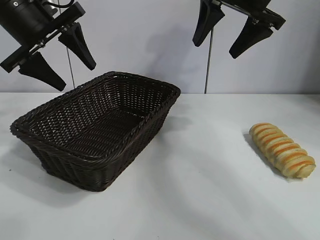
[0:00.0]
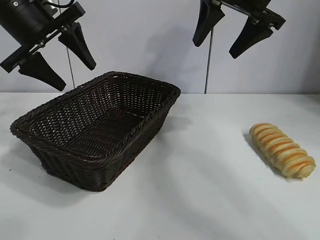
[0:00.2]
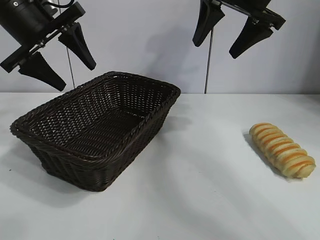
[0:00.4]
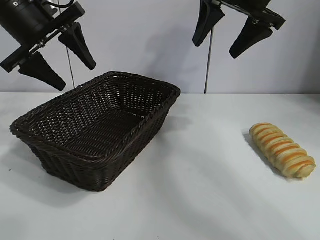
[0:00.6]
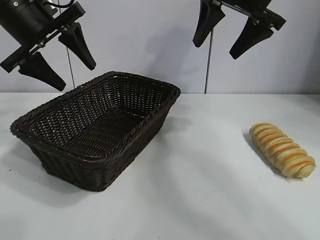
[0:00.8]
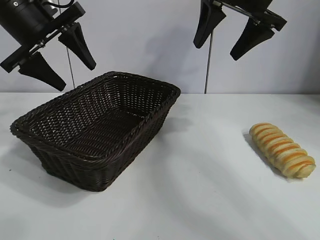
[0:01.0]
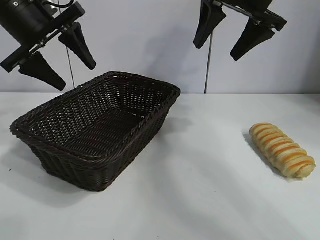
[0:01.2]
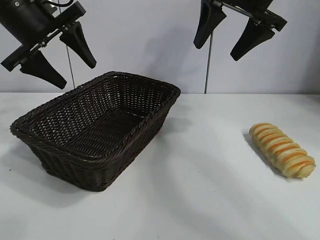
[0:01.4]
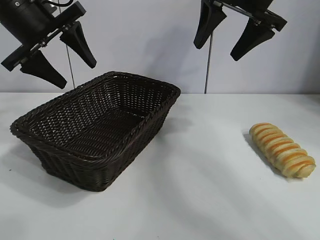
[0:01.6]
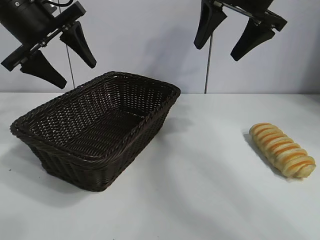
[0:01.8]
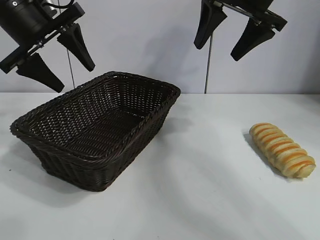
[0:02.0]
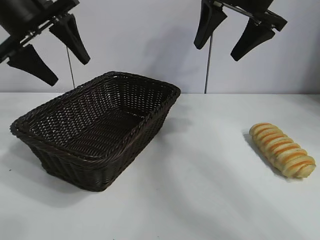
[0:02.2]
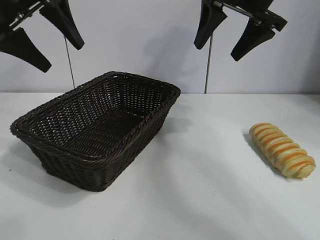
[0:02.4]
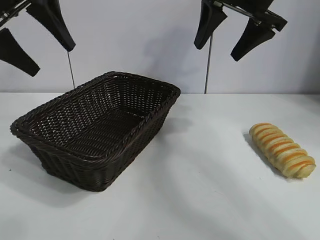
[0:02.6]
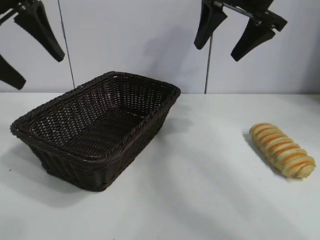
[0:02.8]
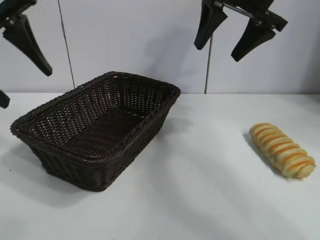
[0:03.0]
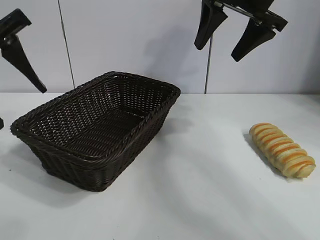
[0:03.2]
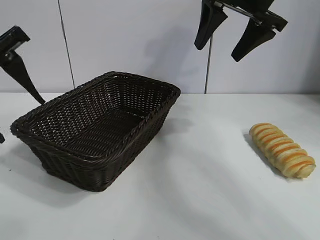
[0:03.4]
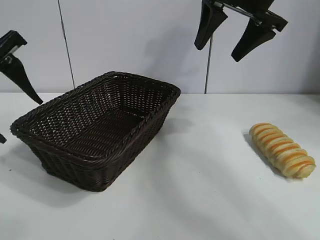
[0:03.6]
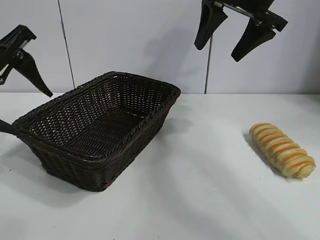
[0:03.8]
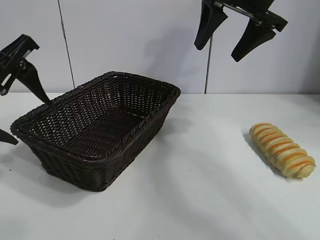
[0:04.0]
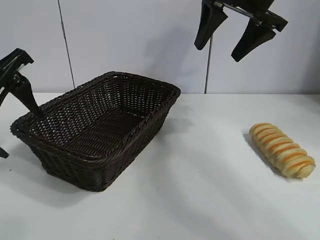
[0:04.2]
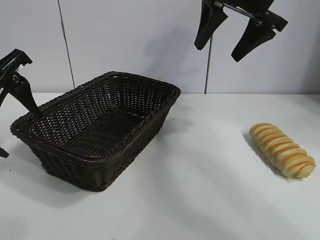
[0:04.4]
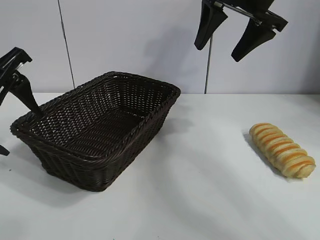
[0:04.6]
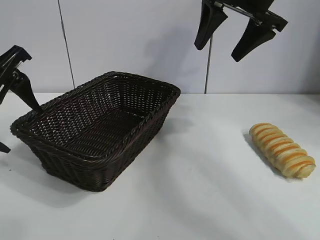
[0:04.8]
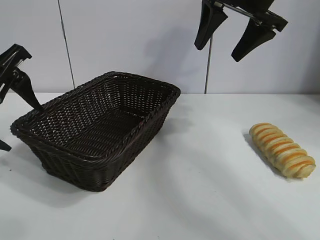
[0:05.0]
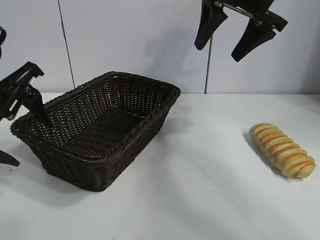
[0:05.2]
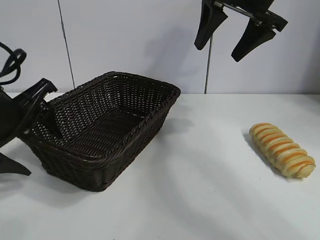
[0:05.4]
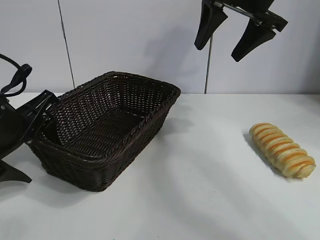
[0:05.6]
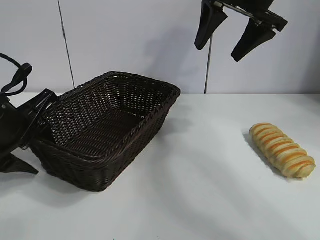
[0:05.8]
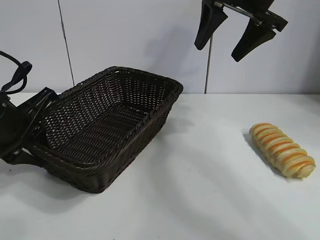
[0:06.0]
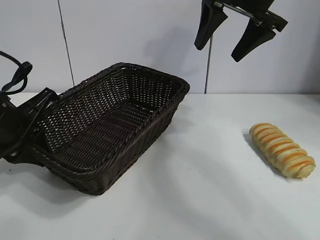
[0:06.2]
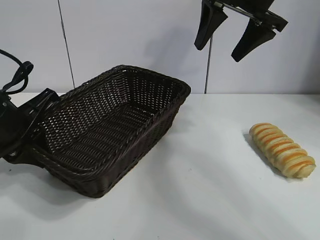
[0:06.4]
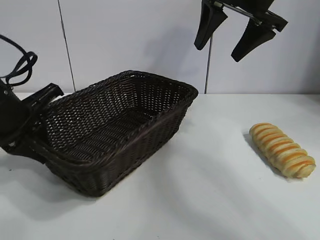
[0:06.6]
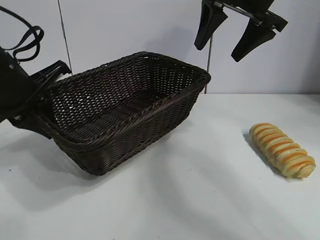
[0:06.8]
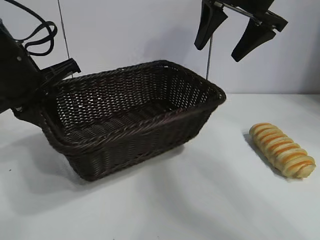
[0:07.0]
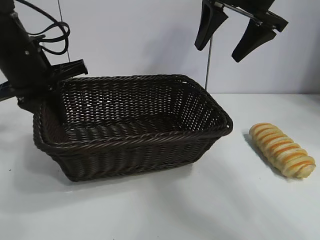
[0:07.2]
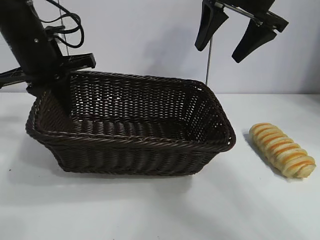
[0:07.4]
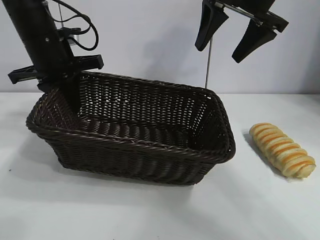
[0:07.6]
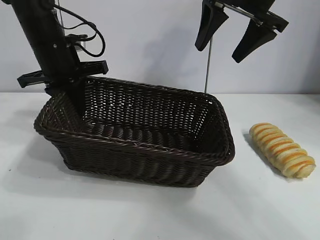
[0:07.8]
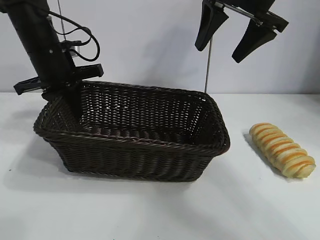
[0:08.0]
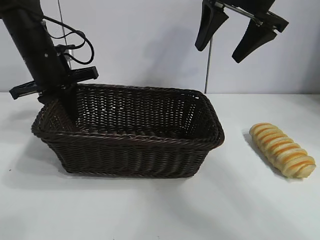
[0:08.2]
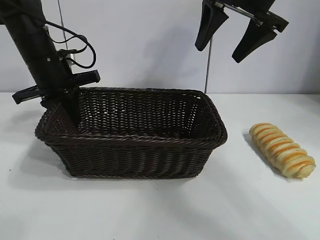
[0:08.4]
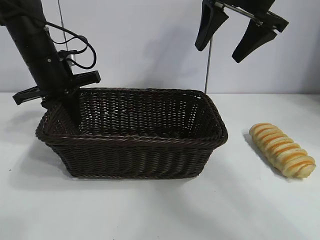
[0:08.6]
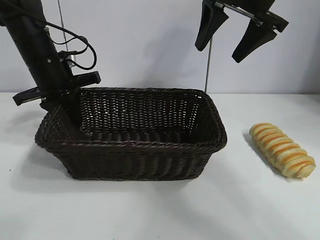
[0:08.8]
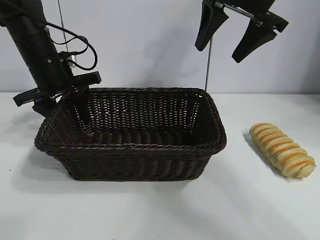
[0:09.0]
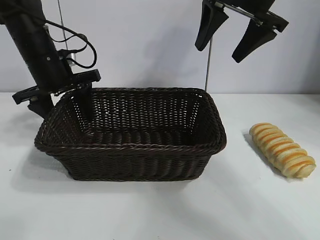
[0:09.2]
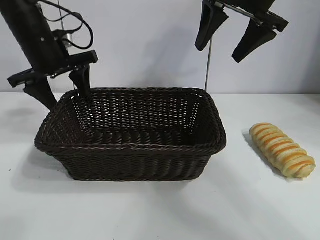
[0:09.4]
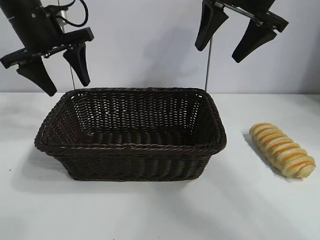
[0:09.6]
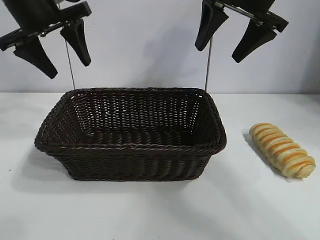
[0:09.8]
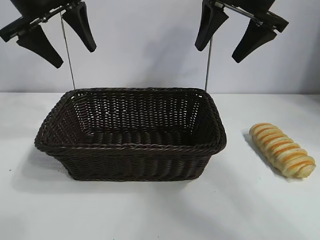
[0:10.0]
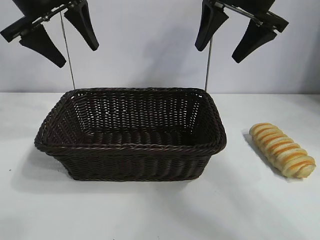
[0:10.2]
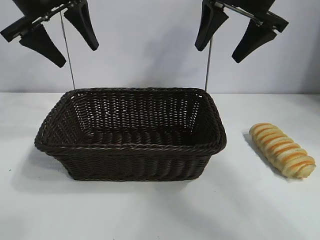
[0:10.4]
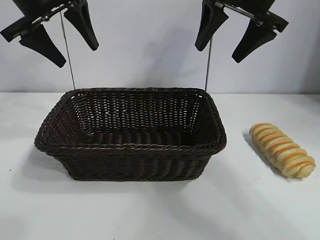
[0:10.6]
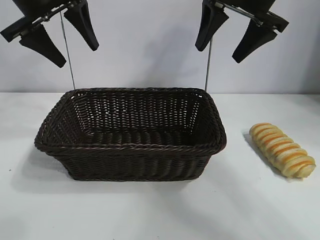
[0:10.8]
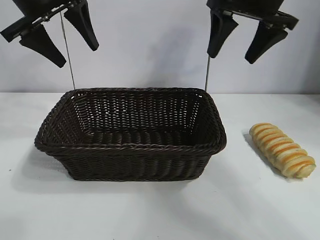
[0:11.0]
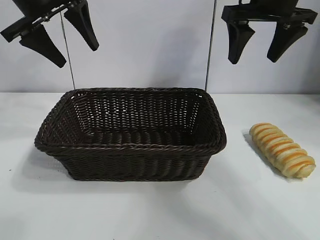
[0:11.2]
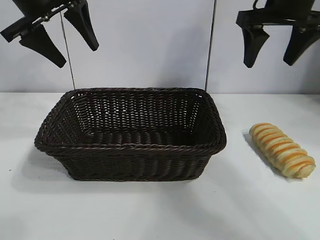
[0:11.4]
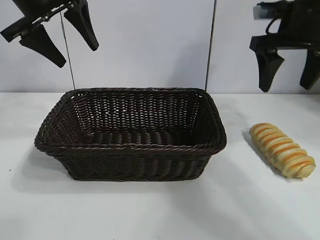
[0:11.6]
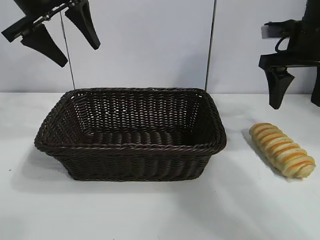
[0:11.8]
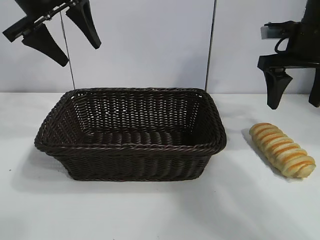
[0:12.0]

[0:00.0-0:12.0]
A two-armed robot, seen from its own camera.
Task of the whole recording: pick up the long bread and put it into the basket.
Step, 0:01.6 to 0:06.0: Grasp the basket with the left gripper.
Step, 0:06.2 to 0:09.0: Place the basket in the center of the table with the left gripper.

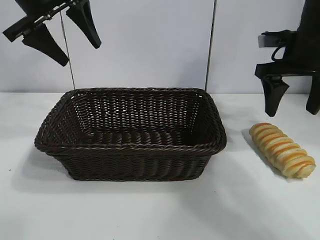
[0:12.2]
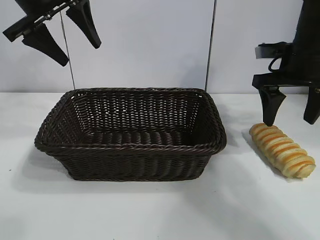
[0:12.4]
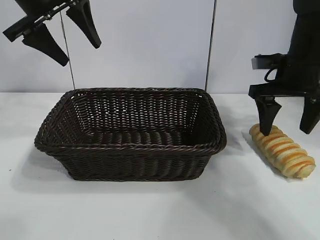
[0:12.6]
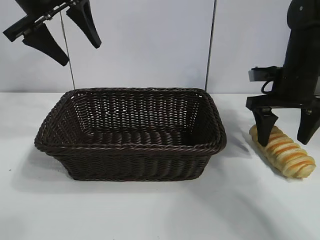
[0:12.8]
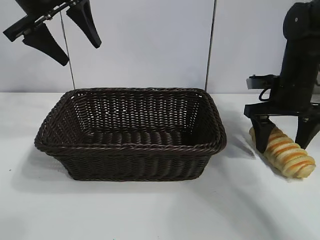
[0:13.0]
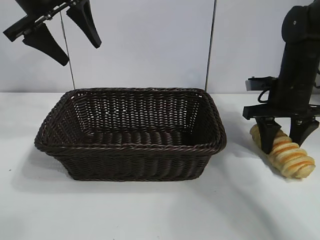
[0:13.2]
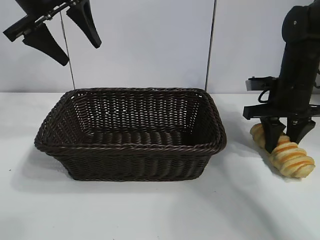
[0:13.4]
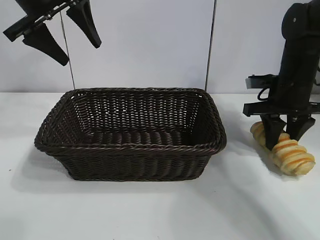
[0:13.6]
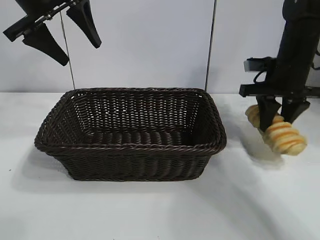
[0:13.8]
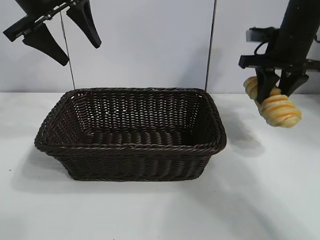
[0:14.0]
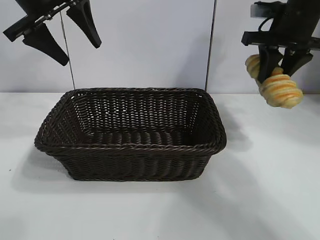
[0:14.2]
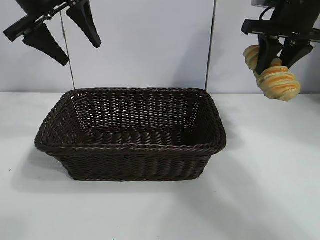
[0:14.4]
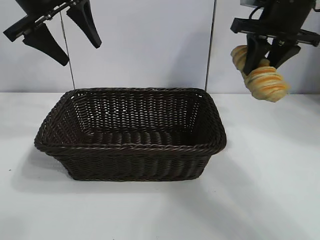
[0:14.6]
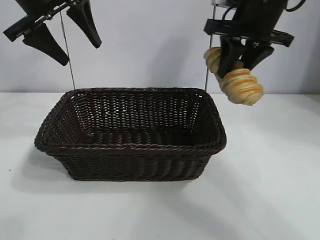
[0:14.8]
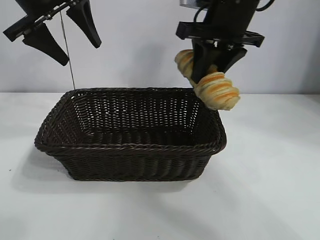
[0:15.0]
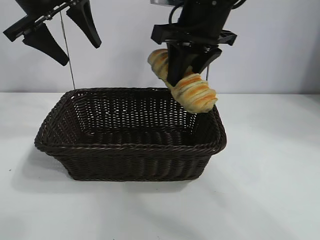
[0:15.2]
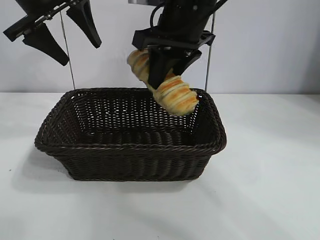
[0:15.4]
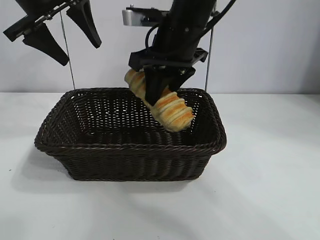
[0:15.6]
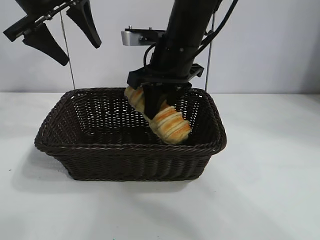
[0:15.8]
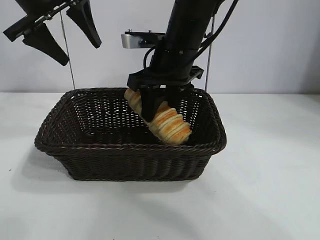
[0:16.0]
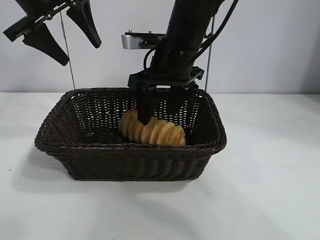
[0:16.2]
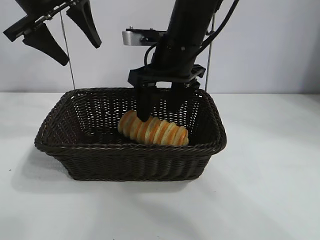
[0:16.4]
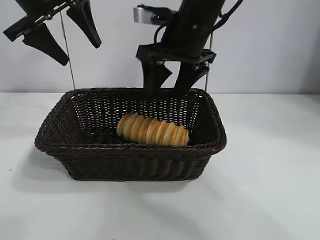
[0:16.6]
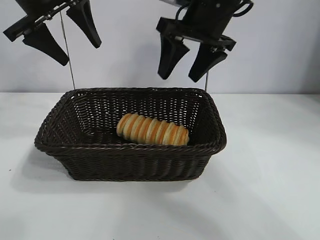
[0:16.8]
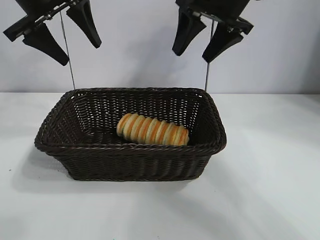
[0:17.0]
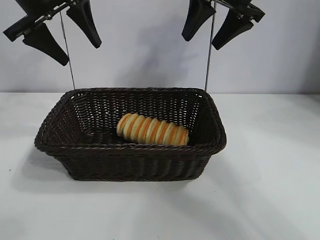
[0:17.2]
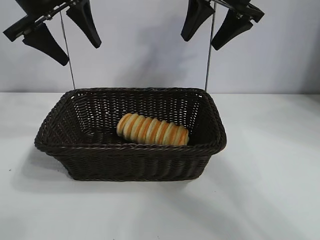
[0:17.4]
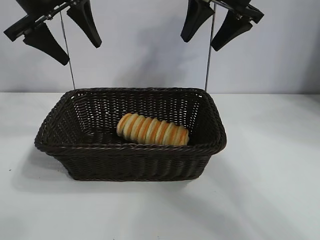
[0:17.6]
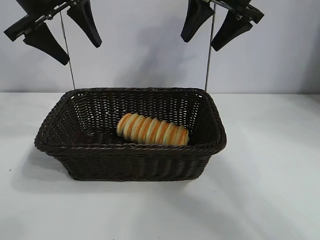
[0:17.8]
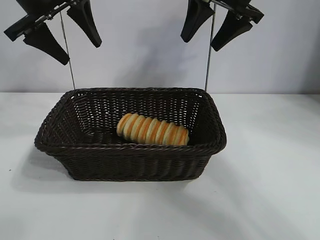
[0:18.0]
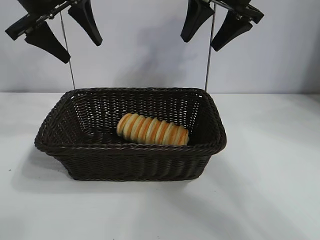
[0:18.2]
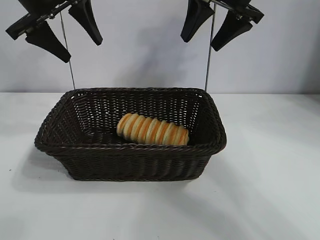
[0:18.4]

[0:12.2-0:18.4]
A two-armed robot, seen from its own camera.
Task of the whole recording: pick up the long bread and put it into the basket.
Step, 0:13.6 to 0:16.4: Place the long bread in the basket with right gripper.
